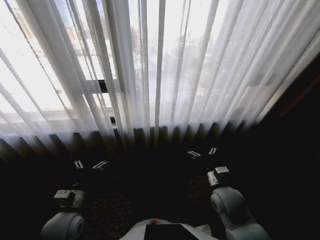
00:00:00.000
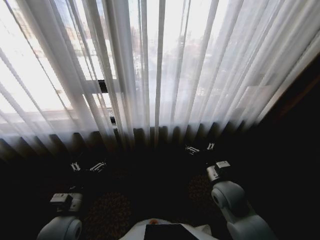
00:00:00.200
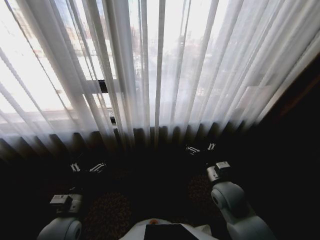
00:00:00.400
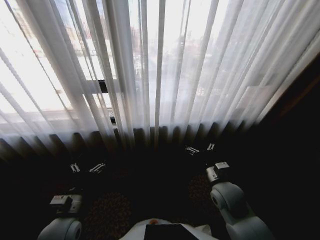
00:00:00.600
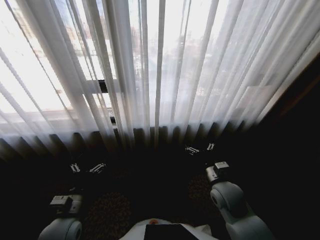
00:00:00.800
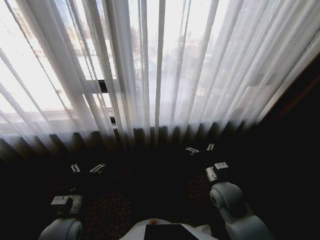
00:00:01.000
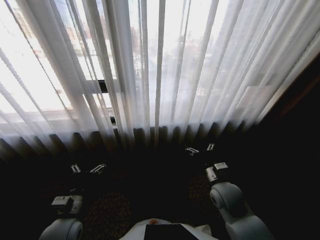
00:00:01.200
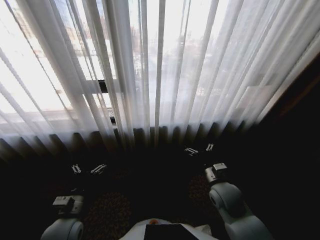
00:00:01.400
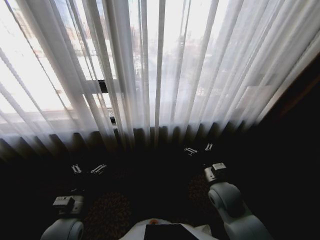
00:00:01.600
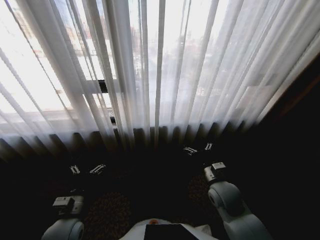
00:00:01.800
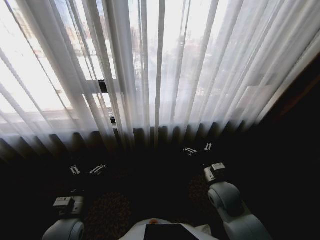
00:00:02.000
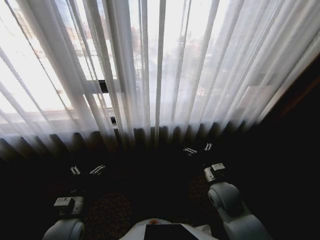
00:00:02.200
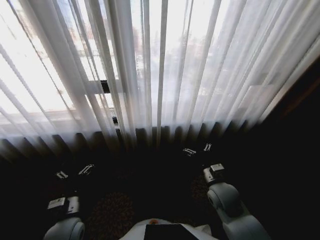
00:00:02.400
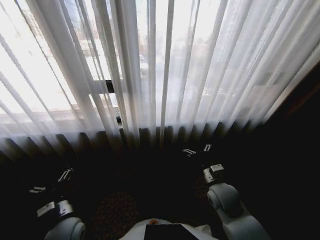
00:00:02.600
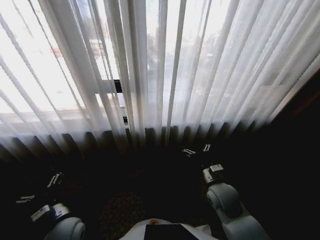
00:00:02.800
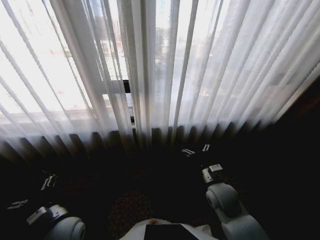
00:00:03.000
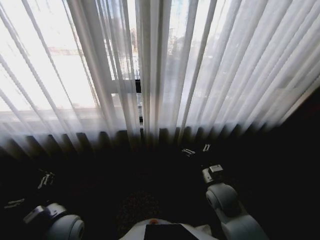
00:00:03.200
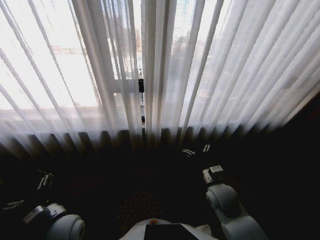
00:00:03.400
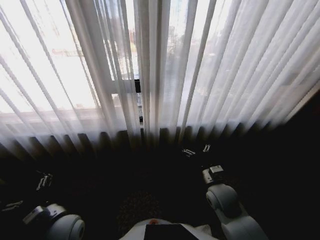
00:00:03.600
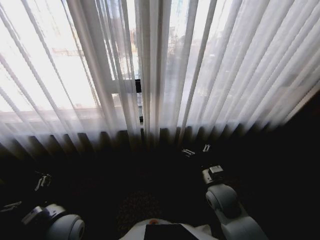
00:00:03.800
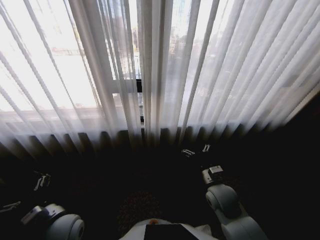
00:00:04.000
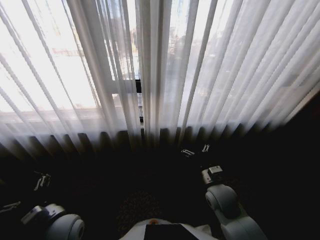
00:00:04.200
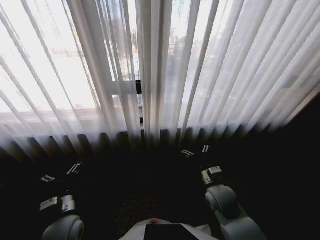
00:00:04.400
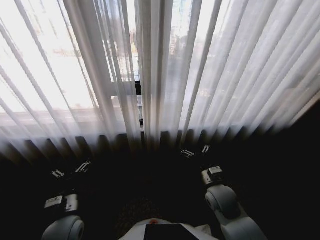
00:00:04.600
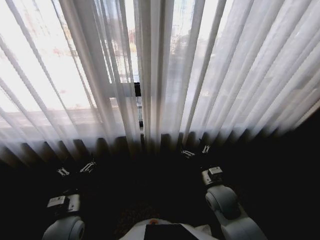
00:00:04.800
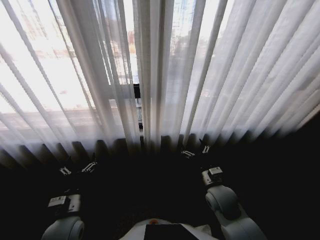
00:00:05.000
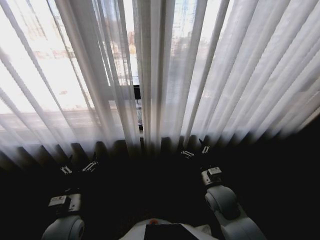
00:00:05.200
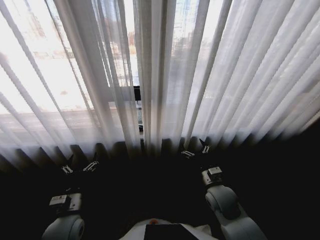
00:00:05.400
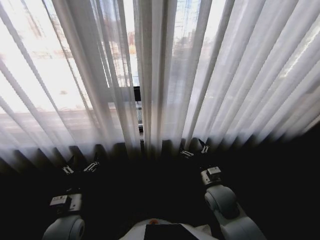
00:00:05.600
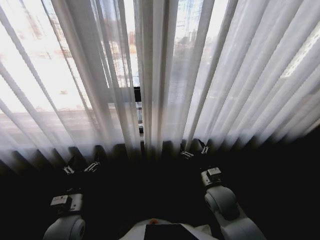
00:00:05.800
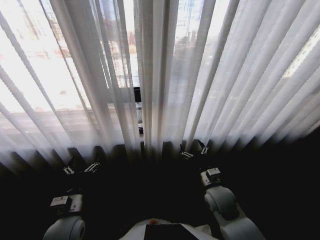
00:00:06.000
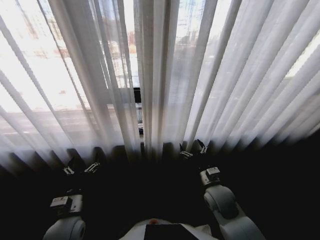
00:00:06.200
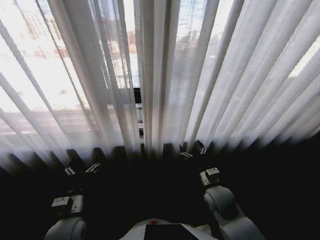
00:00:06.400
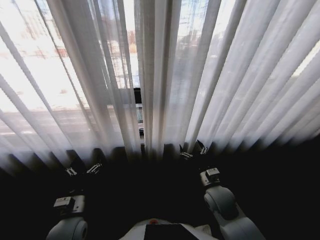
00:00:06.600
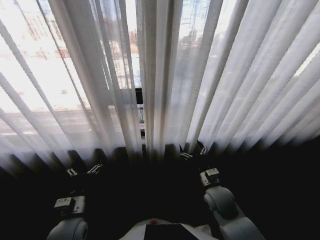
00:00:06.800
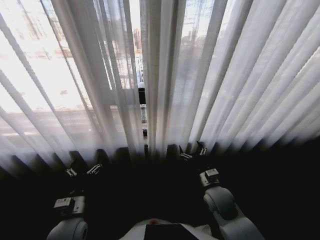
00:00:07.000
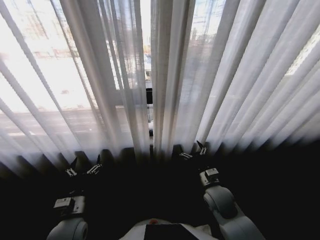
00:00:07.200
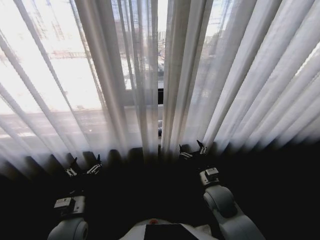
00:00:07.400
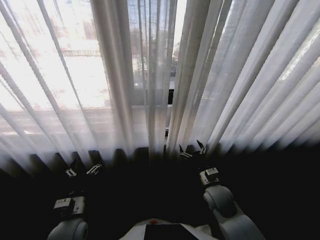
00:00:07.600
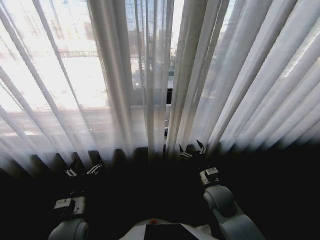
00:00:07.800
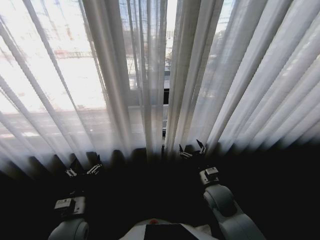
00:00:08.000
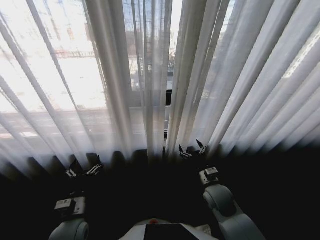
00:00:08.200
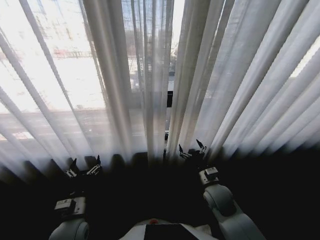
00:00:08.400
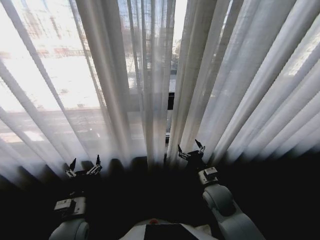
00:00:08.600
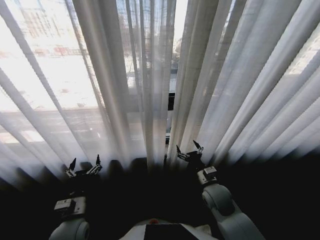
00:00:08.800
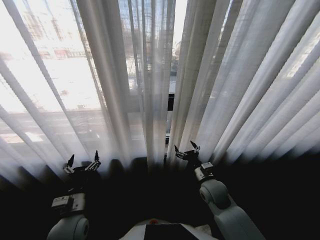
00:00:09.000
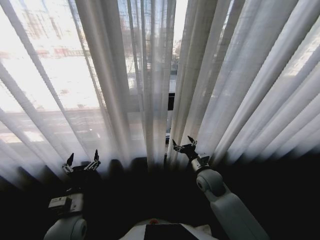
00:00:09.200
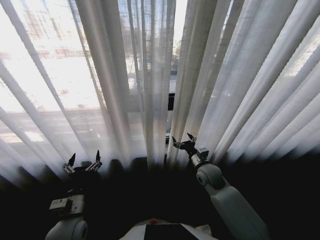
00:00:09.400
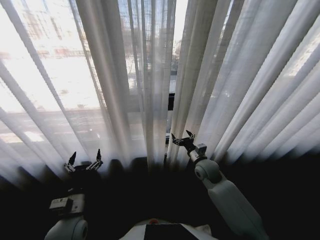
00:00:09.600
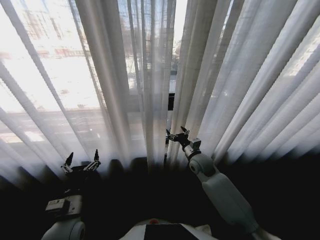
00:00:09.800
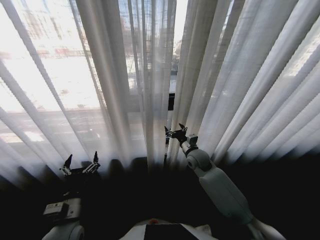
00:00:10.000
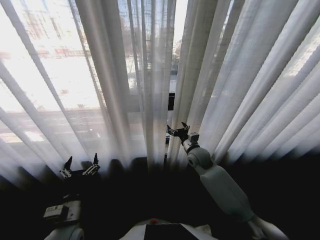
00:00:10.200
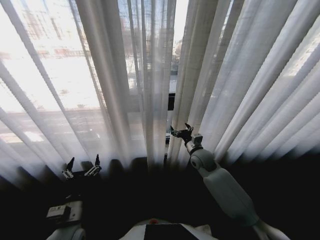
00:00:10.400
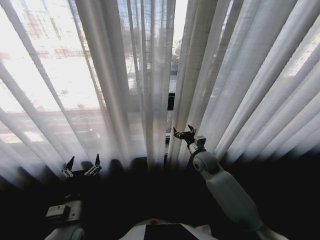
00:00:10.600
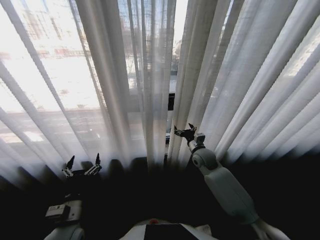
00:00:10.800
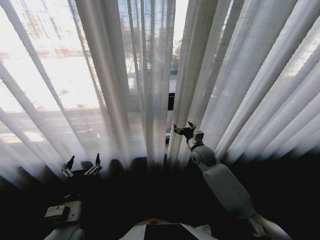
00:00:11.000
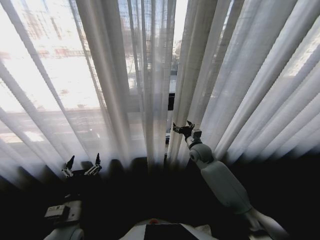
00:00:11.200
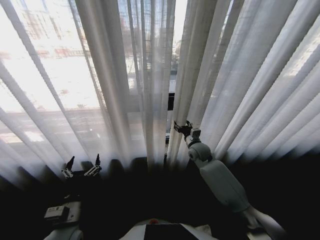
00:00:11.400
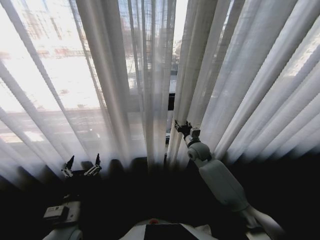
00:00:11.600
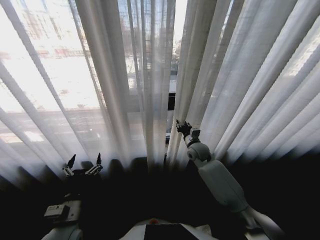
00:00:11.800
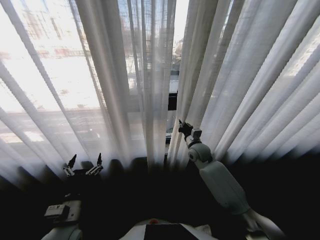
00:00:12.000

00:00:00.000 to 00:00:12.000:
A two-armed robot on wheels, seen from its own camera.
Task of the whole recording: Open the curtains by pulling them apart, changing their state from closed to fully open.
00:00:09.000 to 00:00:10.400: The right gripper heads forward, covering some 15 cm.
00:00:10.400 to 00:00:12.000: The right gripper closes its fingers.

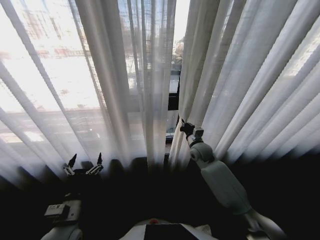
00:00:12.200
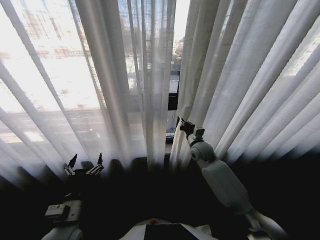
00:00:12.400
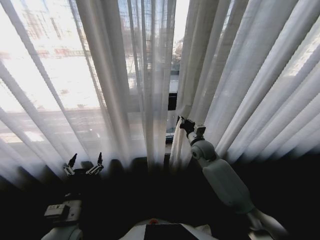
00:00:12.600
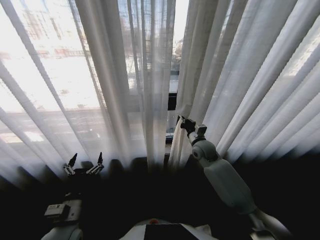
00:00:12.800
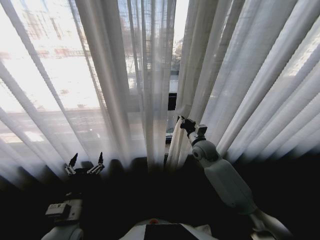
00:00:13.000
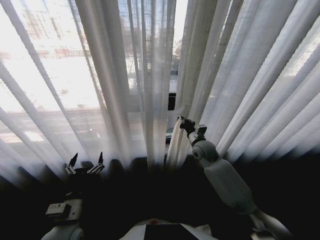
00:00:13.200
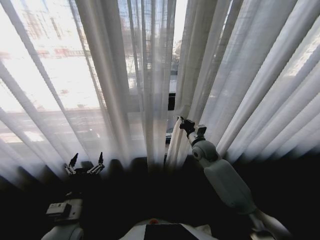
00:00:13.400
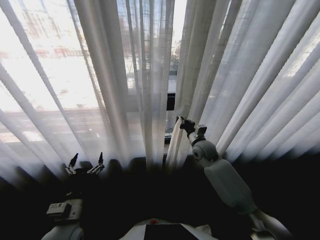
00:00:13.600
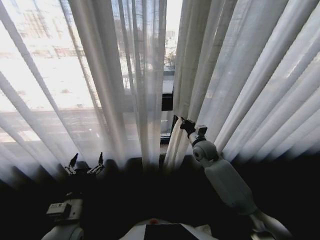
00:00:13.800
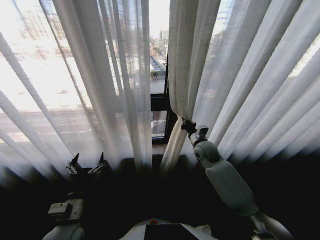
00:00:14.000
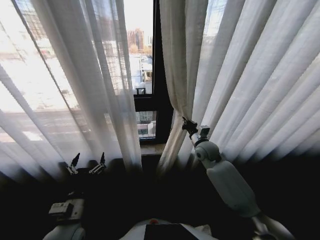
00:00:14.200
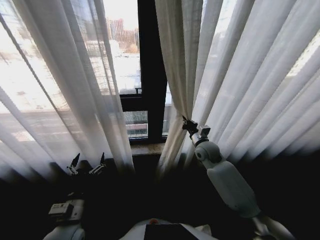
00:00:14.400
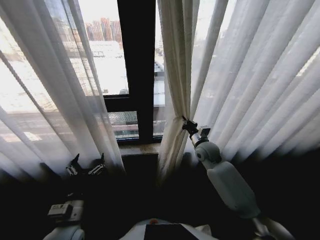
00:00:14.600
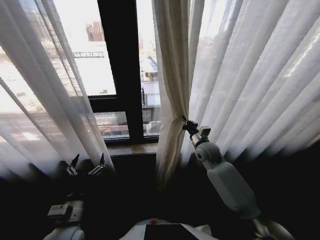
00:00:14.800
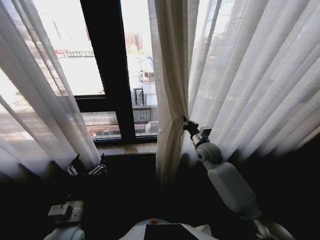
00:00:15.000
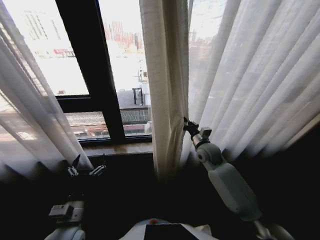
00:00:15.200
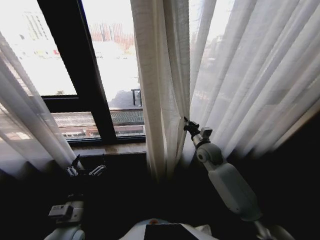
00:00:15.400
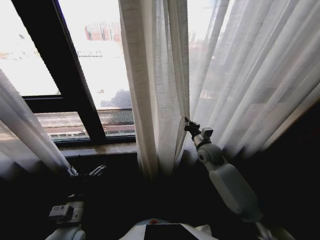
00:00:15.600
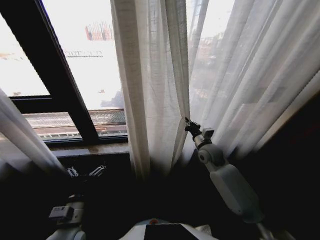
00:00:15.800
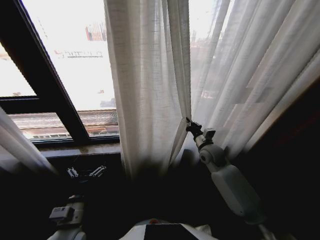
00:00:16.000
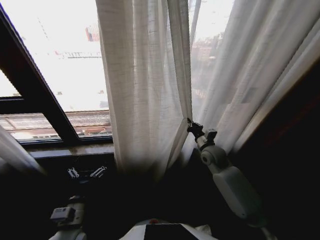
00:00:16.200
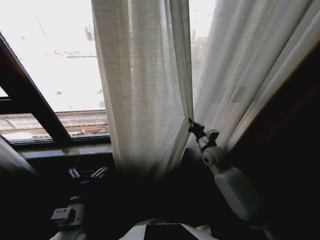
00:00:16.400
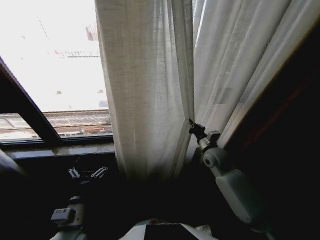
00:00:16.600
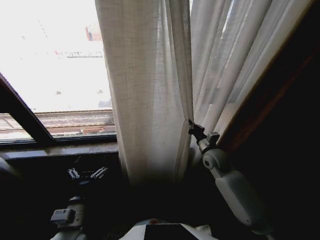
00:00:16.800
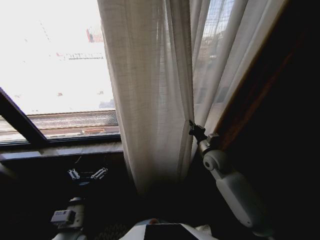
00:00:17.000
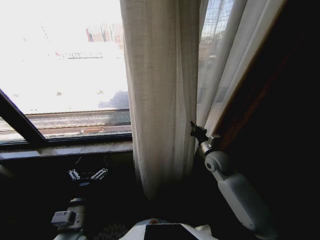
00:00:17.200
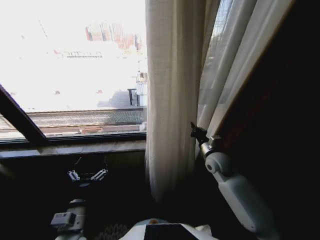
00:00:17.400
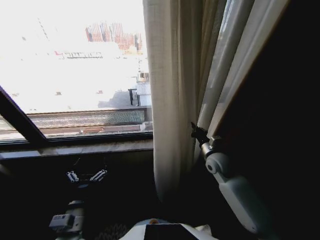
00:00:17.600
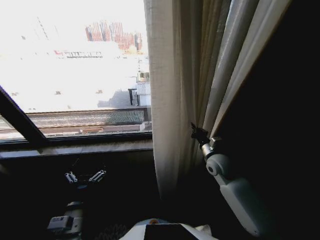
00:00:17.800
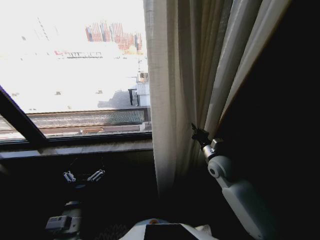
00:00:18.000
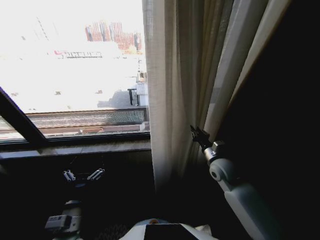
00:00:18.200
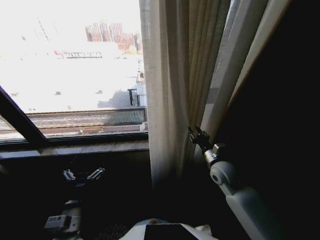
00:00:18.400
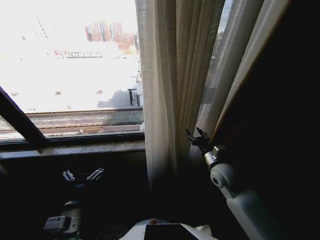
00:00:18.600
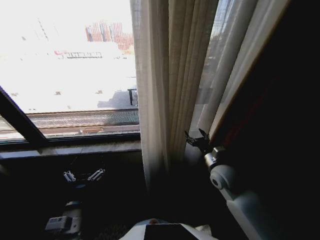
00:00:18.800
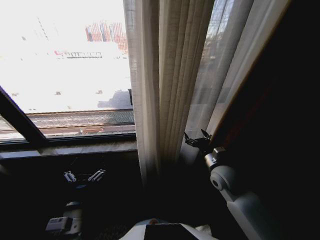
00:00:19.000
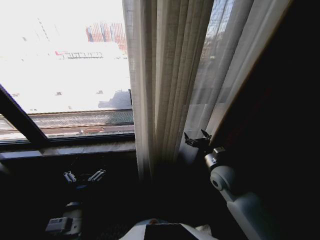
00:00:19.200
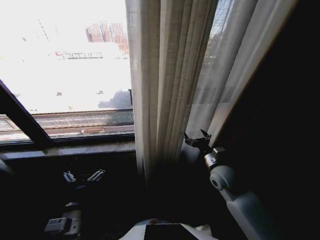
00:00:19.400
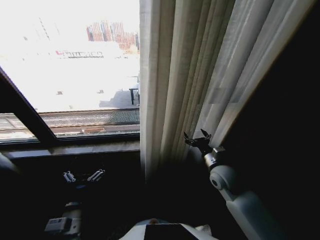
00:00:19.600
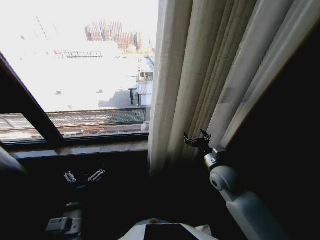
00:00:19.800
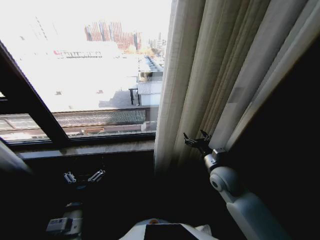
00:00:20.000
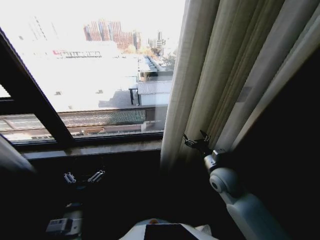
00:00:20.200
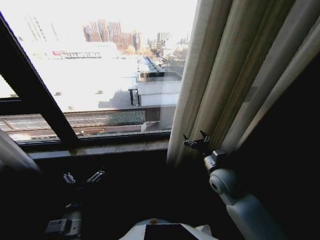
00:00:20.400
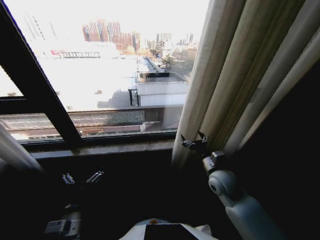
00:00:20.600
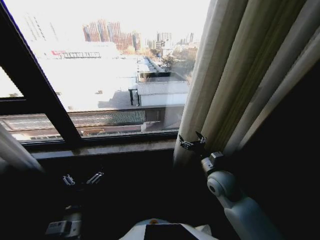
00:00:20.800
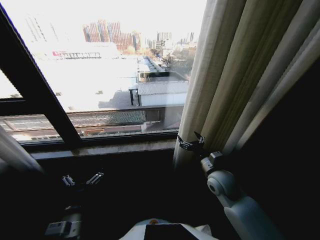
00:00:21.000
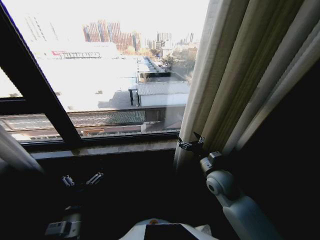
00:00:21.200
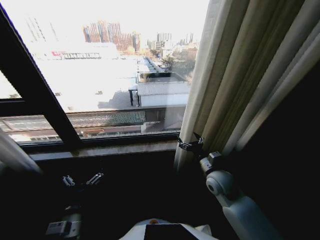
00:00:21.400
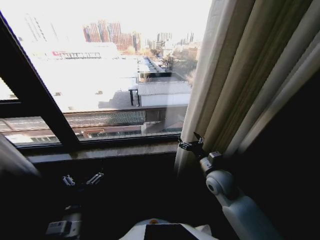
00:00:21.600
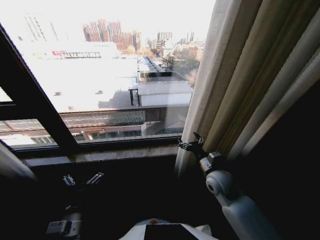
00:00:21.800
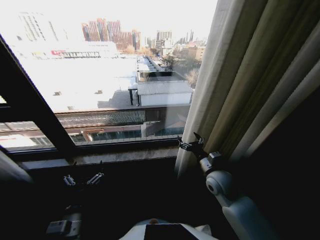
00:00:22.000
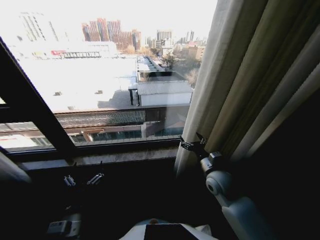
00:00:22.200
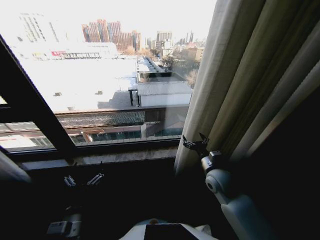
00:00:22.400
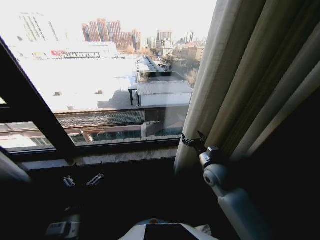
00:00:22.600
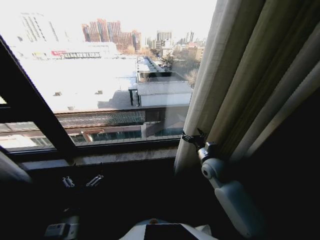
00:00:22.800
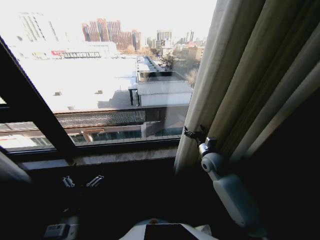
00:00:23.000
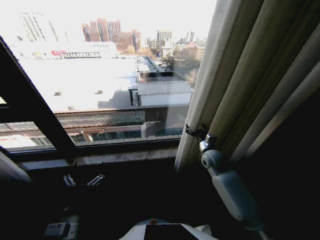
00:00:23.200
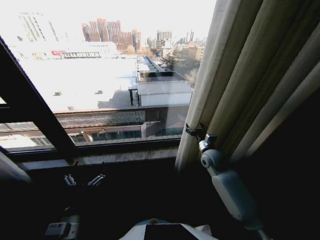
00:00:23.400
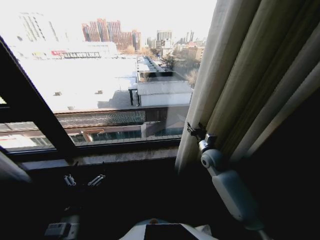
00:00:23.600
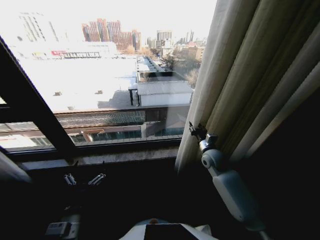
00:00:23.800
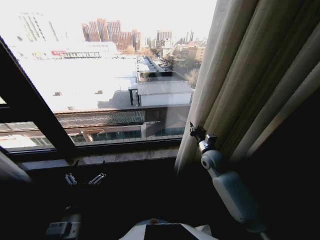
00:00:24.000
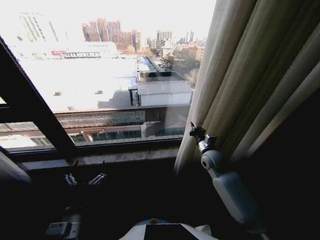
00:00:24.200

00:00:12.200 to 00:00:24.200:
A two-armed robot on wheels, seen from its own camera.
Task of the whole recording: Open the curtains by pulling them apart, changing their state from closed to fully open.
00:00:16.600 to 00:00:18.200: The right gripper goes about 5 cm backward.
00:00:18.200 to 00:00:19.800: The right gripper opens up.
00:00:22.600 to 00:00:24.200: The right gripper goes roughly 5 cm forward, and closes up.
